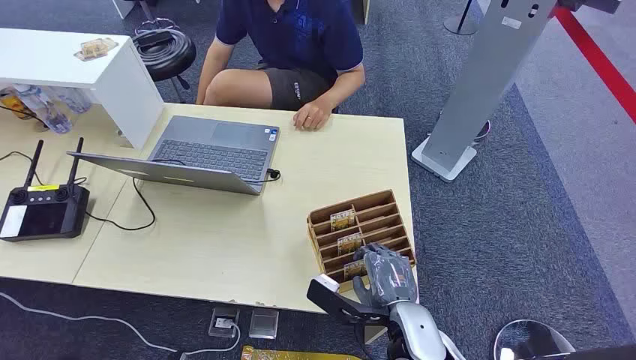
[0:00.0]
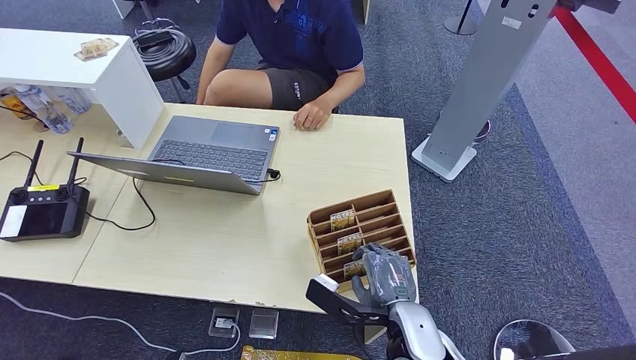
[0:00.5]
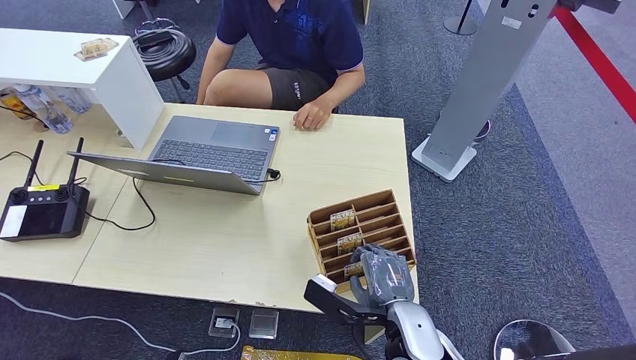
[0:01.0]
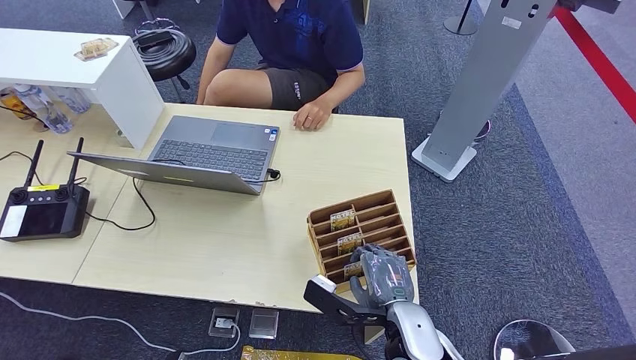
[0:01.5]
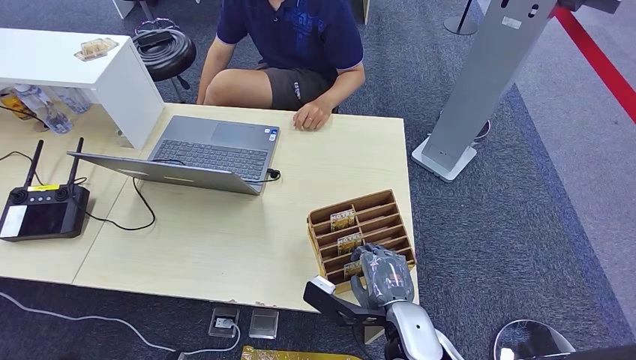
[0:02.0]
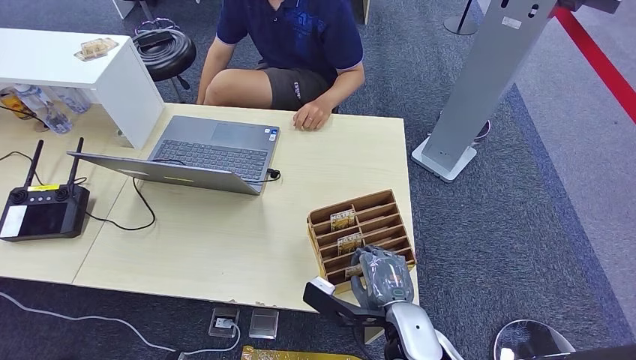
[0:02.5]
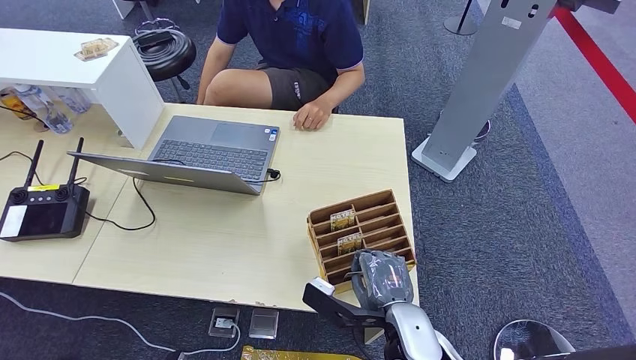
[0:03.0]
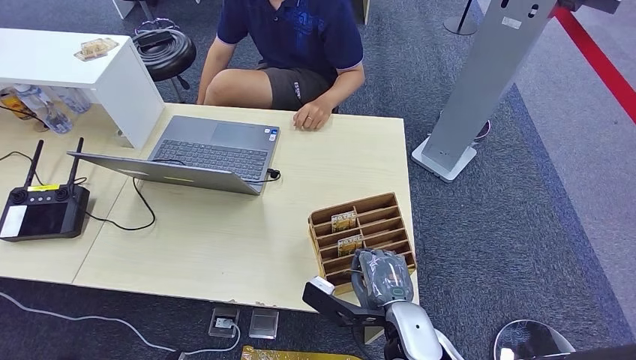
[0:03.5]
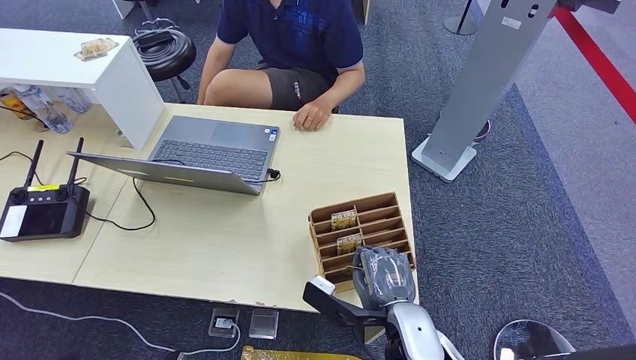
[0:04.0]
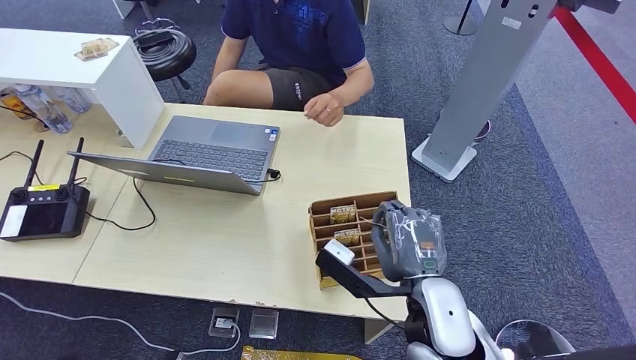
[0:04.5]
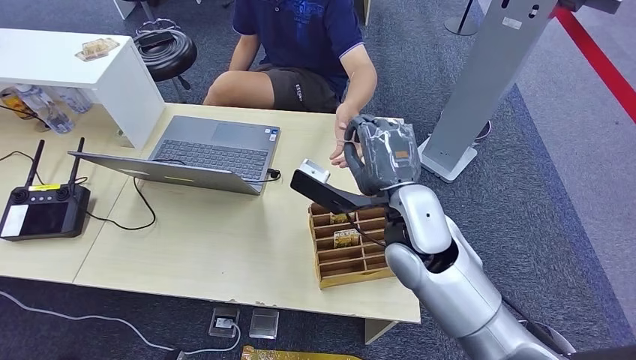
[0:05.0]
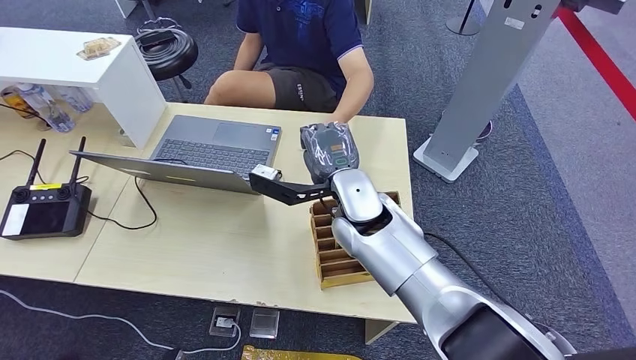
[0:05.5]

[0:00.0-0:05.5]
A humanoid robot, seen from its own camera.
Step, 0:00.0 to 0:04.0: Pick up the room card from the card holder.
Step, 0:04.5 to 0:05.5: Hand the room card to the target.
0:02.0 to 0:03.5: The two hands keep their place.
0:03.5 to 0:05.5: The right hand heads forward, upward and to the left, covering about 25 cm.

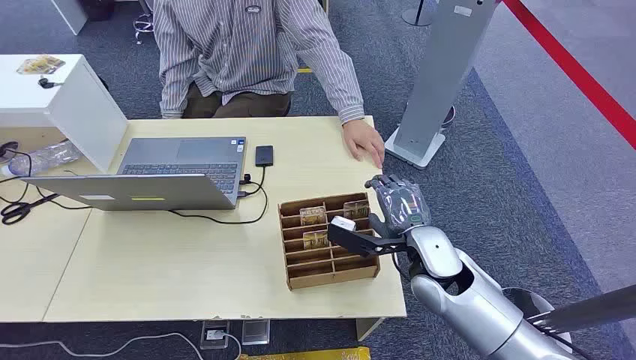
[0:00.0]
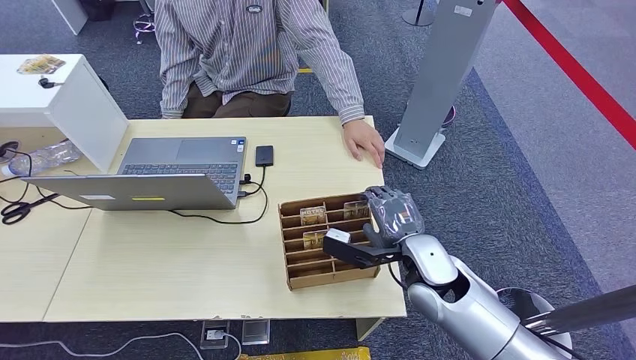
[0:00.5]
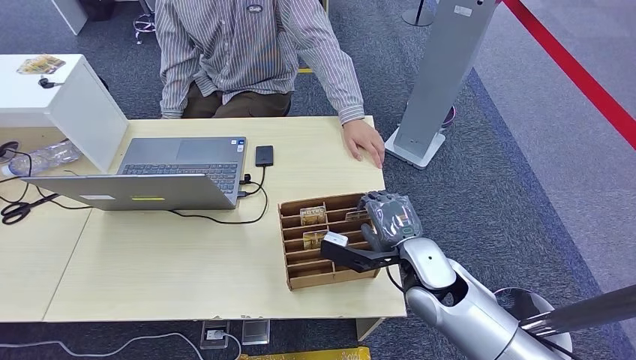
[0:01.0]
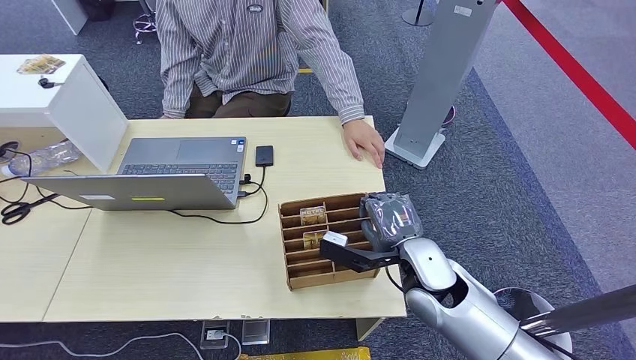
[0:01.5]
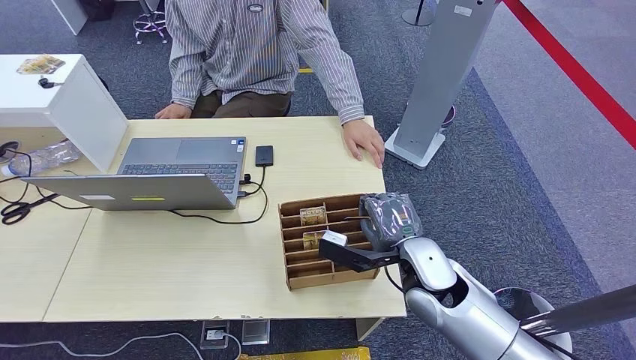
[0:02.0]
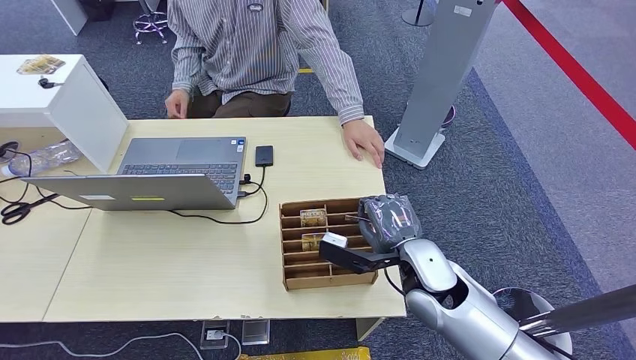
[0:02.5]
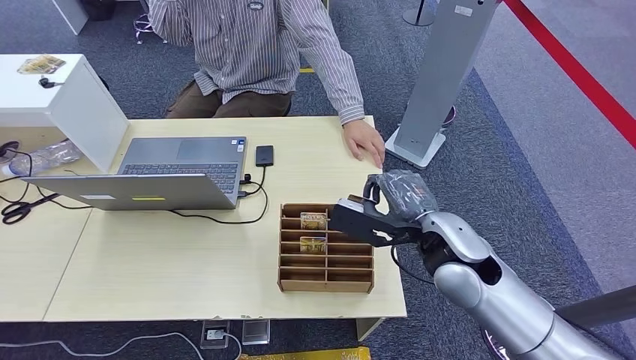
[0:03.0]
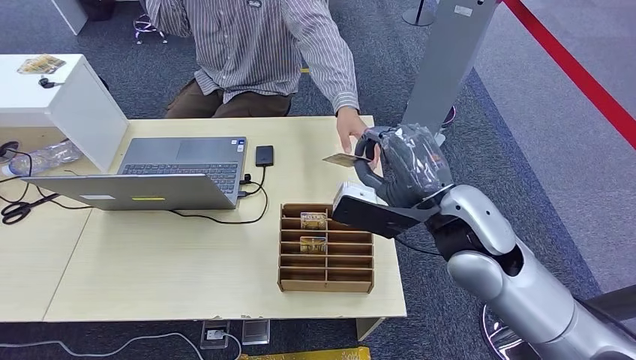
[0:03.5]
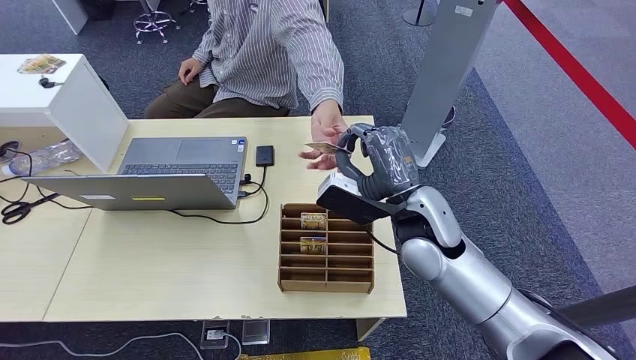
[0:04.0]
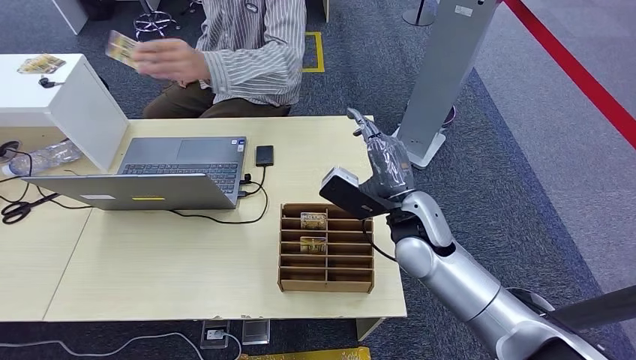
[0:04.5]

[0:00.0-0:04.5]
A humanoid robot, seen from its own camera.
Step, 0:00.0 to 0:03.0: Pick up the room card from the card holder.
Step, 0:04.0 to 0:04.5: Hand the room card to the target.
